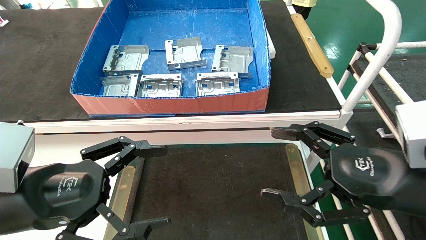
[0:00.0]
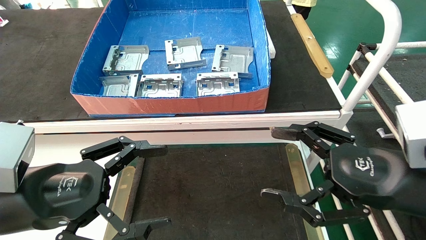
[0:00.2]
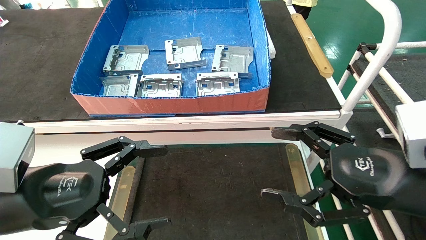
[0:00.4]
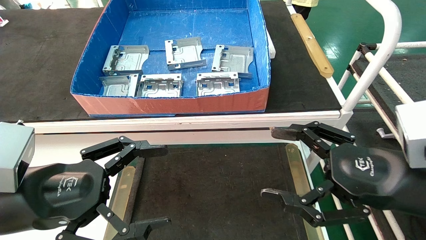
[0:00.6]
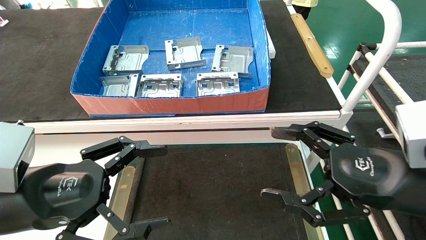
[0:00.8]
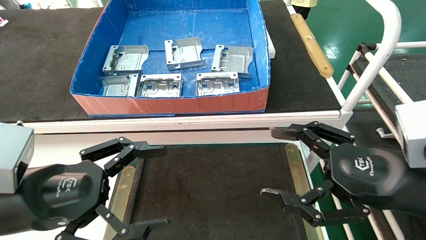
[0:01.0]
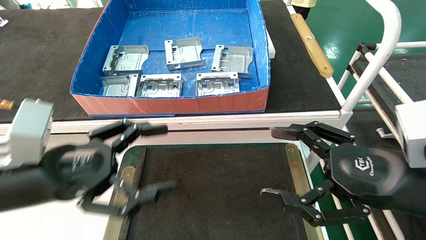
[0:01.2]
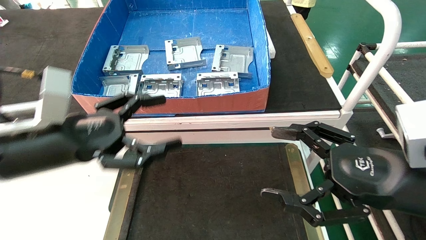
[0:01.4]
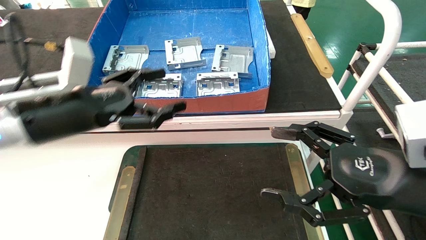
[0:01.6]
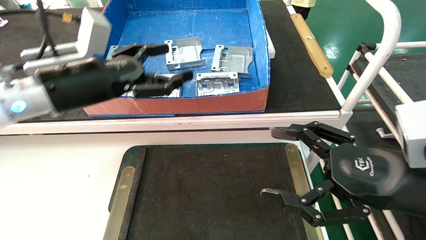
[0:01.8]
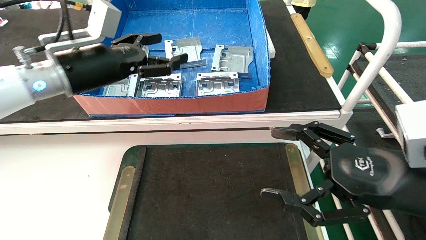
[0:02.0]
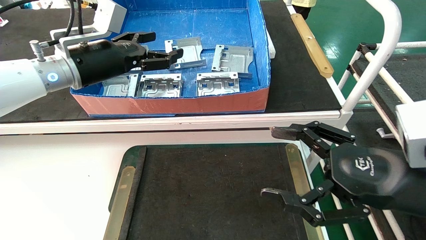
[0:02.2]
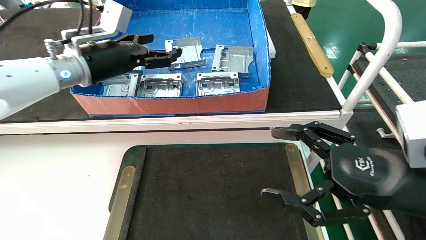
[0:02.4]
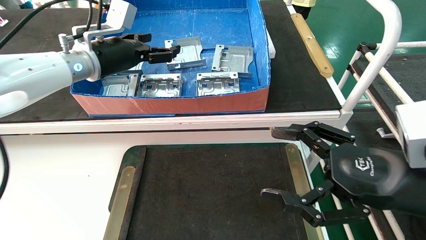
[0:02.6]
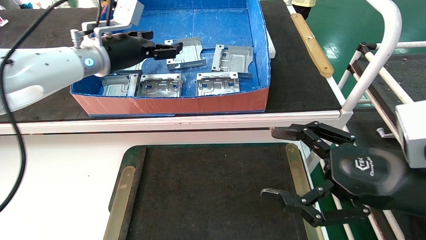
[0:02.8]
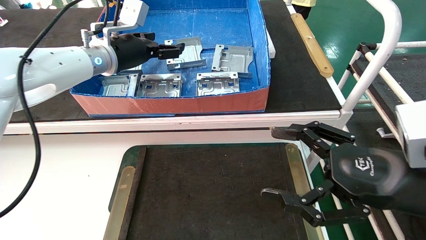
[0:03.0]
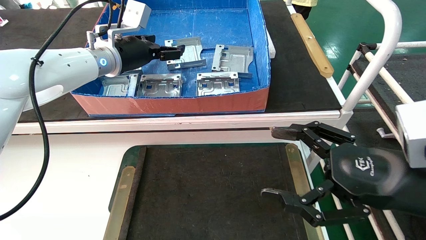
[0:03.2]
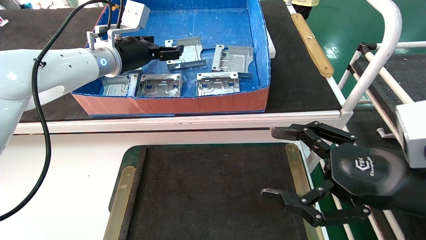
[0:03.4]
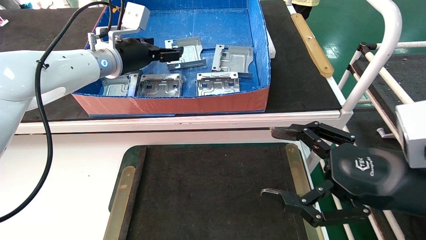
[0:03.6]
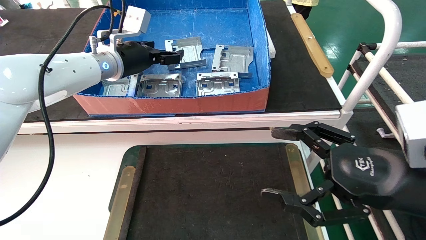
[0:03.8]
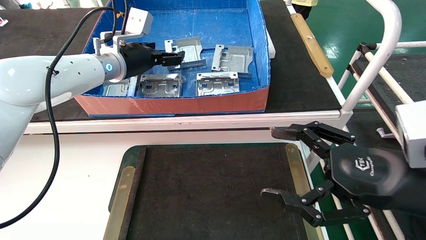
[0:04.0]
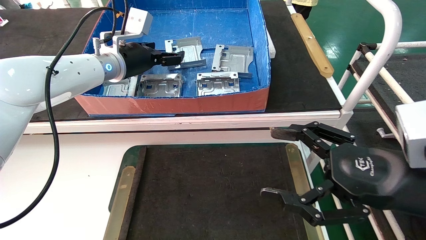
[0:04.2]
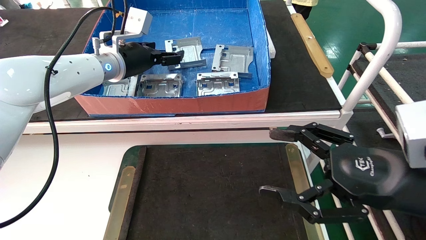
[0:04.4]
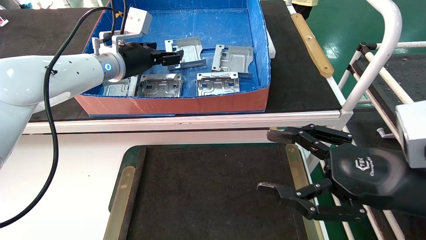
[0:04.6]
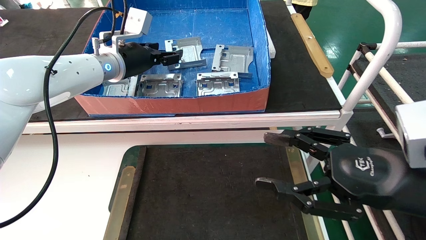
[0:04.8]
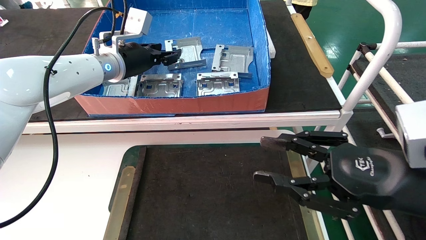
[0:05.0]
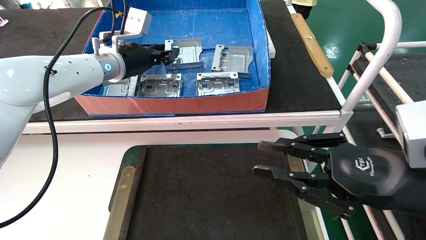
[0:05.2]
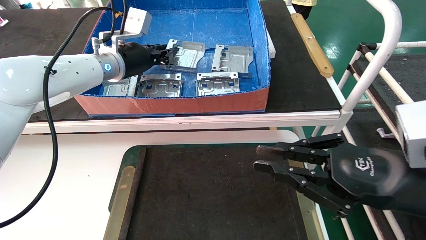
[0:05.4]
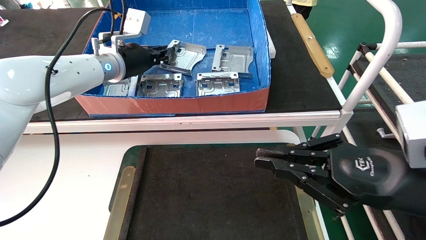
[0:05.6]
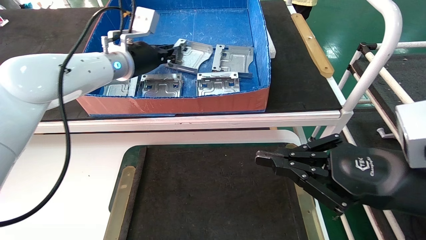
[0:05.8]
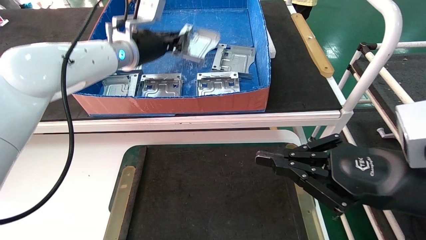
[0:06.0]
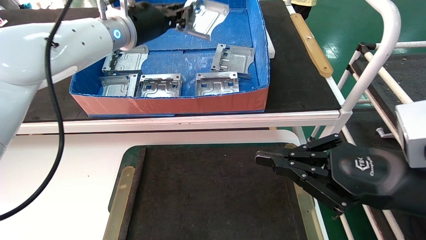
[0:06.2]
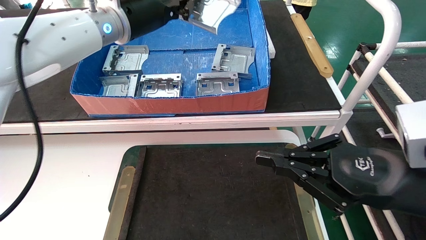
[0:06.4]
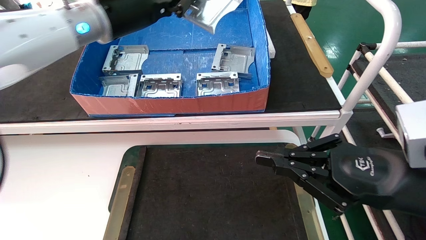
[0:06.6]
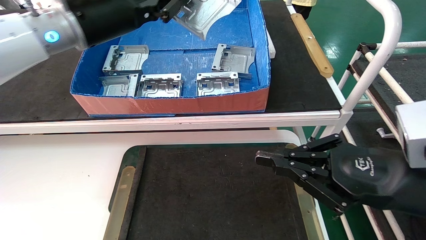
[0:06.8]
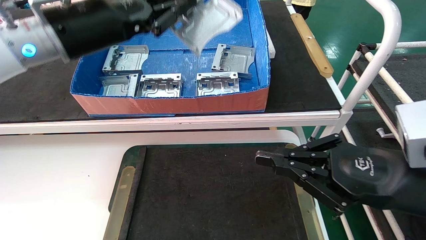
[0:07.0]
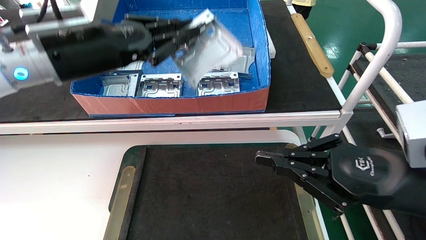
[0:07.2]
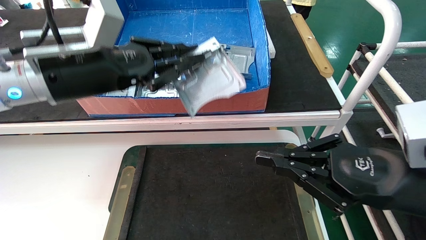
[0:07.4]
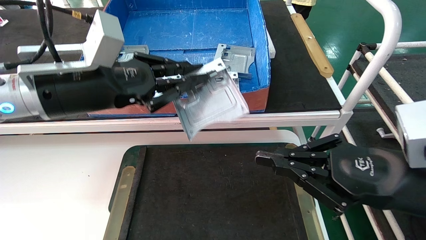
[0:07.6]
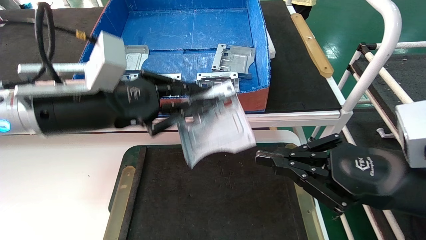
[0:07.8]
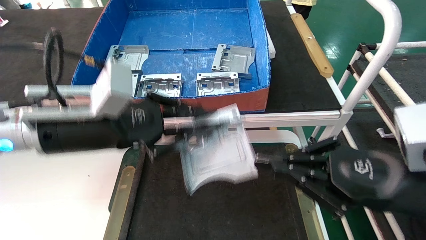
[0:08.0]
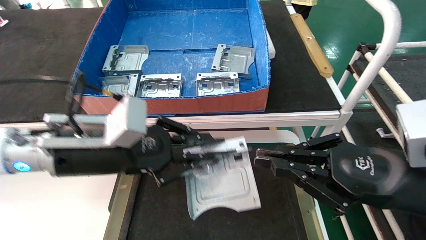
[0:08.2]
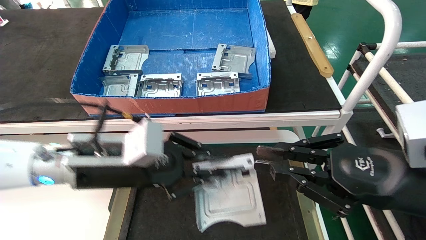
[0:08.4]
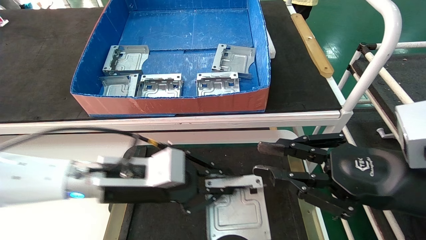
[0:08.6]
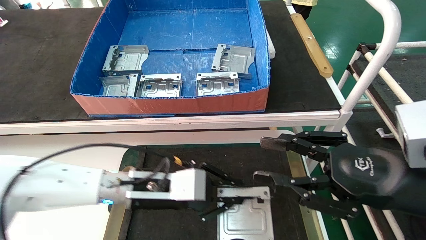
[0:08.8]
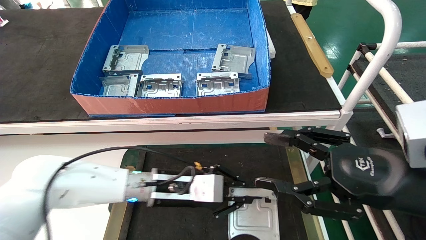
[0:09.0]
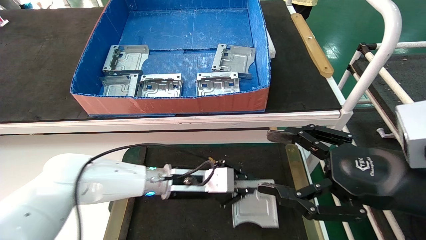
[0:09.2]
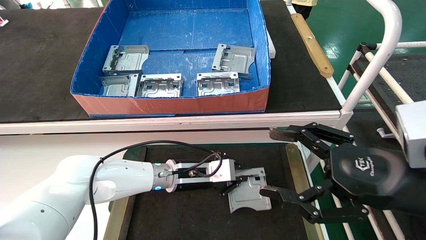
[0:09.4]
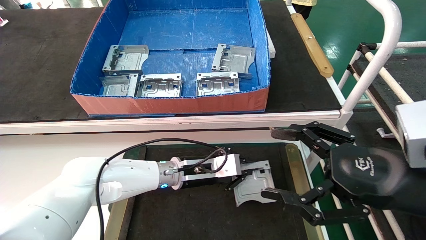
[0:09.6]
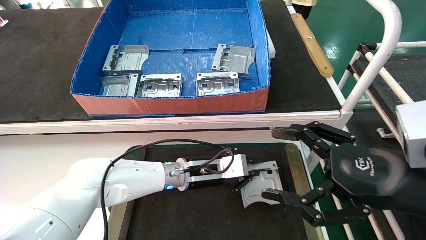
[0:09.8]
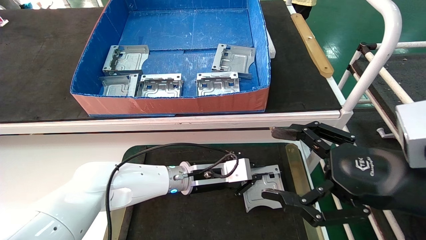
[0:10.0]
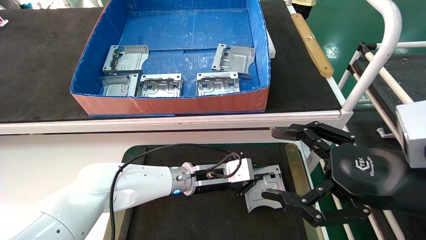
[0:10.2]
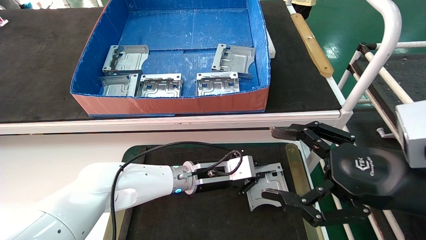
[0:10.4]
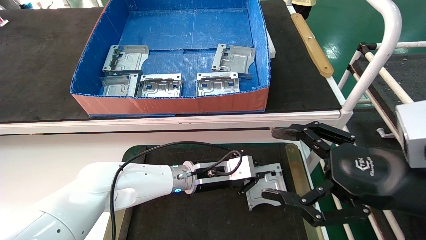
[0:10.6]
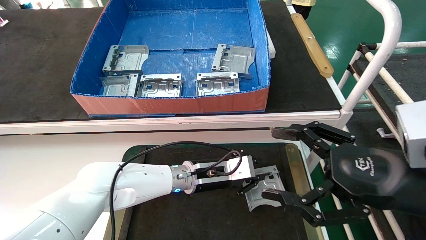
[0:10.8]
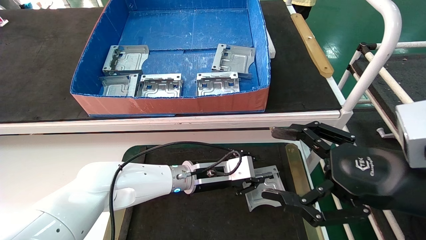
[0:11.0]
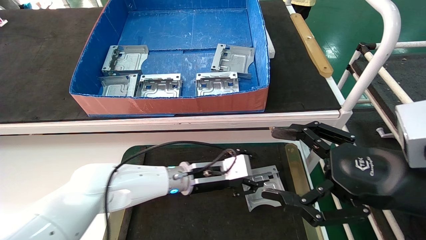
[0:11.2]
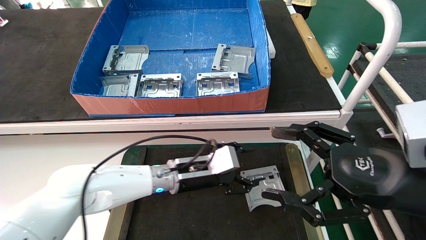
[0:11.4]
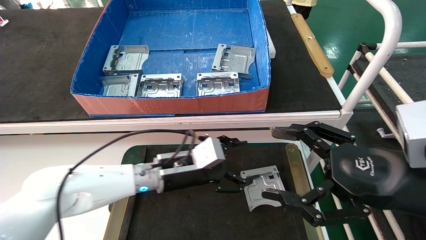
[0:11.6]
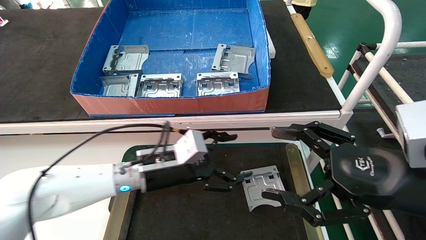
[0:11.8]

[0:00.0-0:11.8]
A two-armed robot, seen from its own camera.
Task of the whole recording: take the accessories out of the box and place them on the table.
Step, 0:01.2 to 0:05.6: Pick up the hard drive bracket from the feeding area.
Step, 0:05.8 to 0:11.0: Place the hard drive bracket into the box.
0:00.0 to 0:01.4: The left gripper heads forward, covering approximately 5 cm.
0:01.4 to 0:03.0: The left gripper moves forward and upward, about 20 cm.
0:03.0 to 0:04.4: The grippers move only a little.
0:04.4 to 0:06.0: The right gripper closes its fingers, while the left gripper ends up some 5 cm from where it was, and closes up.
0:06.0 to 0:07.4: The left gripper goes approximately 15 cm backward.
0:07.4 to 0:08.8: The left gripper moves downward and to the right, about 20 cm; the right gripper opens up.
0:08.8 to 0:10.4: The right gripper opens, while the left gripper is displaced to the right and forward by some 10 cm.
0:10.4 to 0:11.8: The left gripper goes about 10 cm to the left and backward, and opens.
